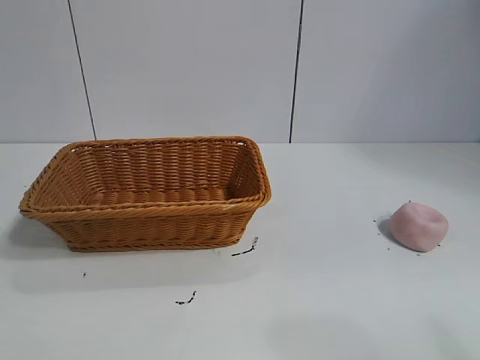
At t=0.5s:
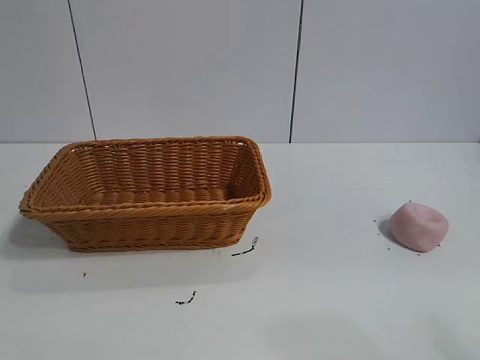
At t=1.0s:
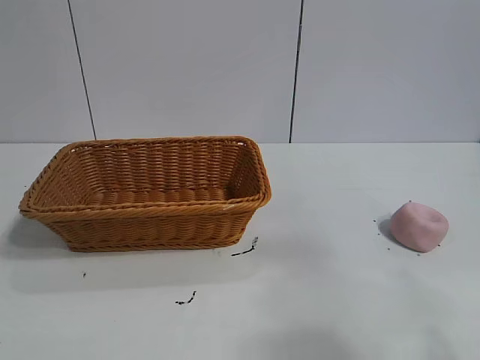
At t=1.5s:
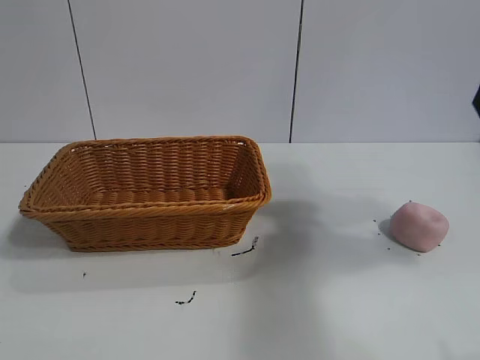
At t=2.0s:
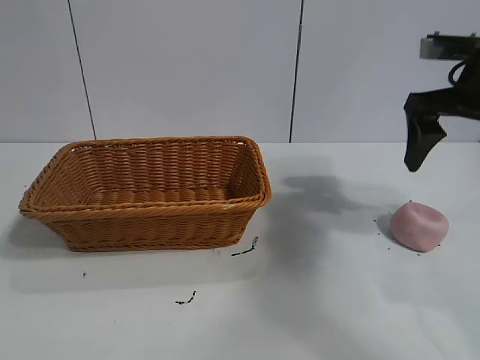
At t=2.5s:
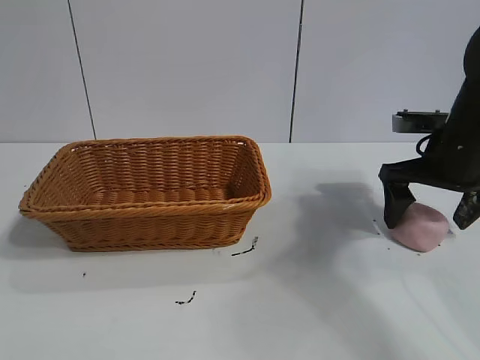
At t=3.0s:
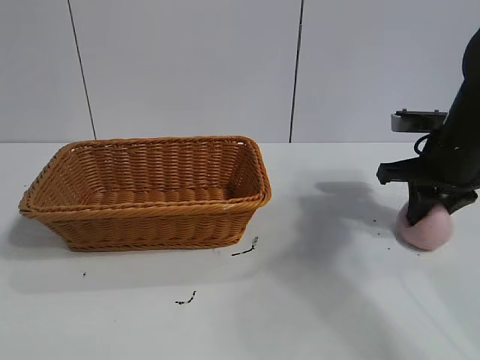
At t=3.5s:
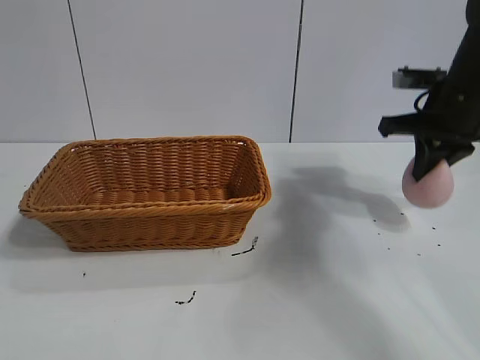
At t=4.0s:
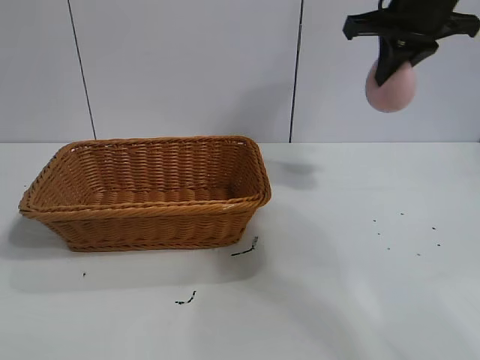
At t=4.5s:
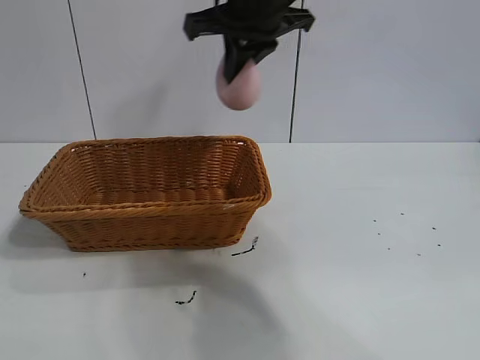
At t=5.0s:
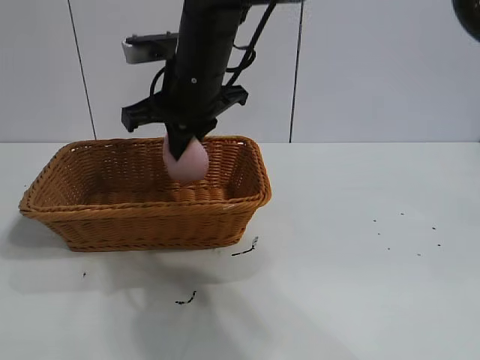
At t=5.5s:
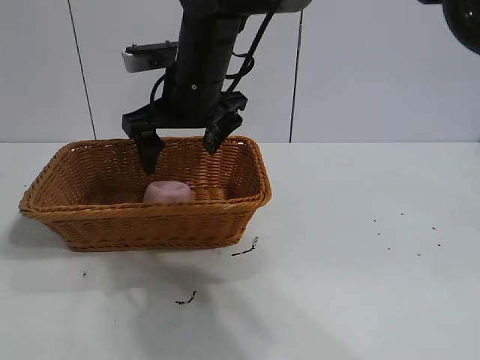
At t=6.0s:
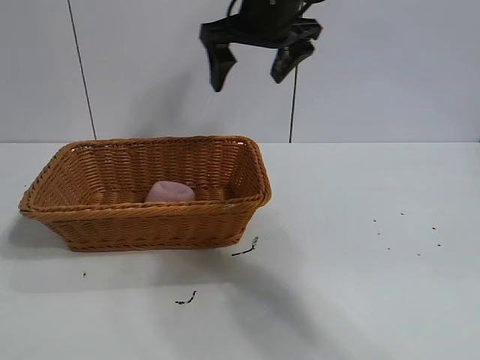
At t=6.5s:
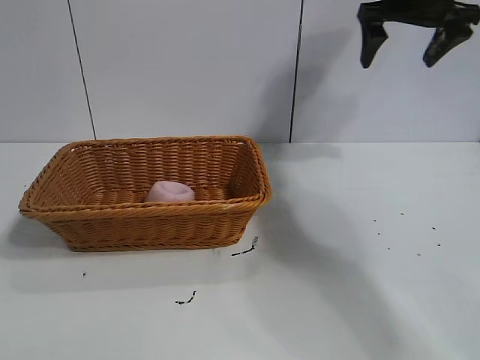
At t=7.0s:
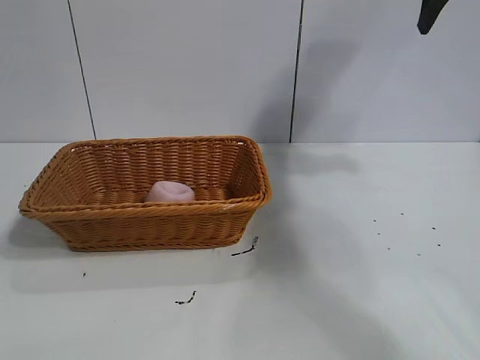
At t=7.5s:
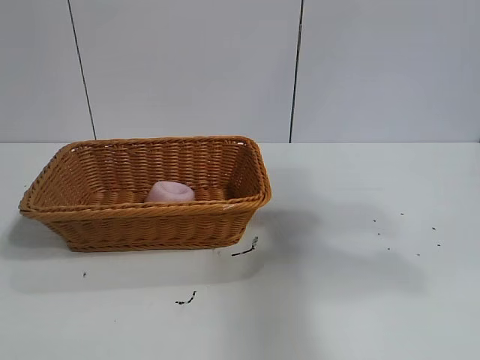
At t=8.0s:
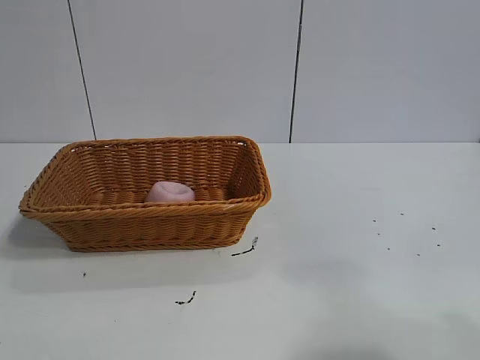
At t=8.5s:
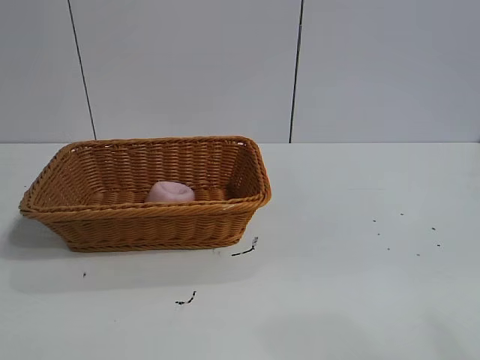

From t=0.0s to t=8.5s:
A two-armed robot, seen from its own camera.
Task of the whole recording: pick up the peach and put it into the basket.
Step, from t=1.0s to t=3.0s: Grasp the peach with right gripper.
Step, from t=3.5s to t=5.0s: Place the peach in the basket with right gripper.
